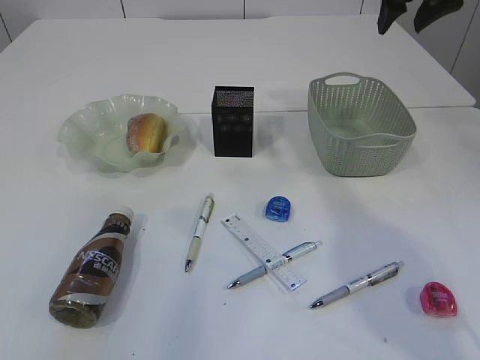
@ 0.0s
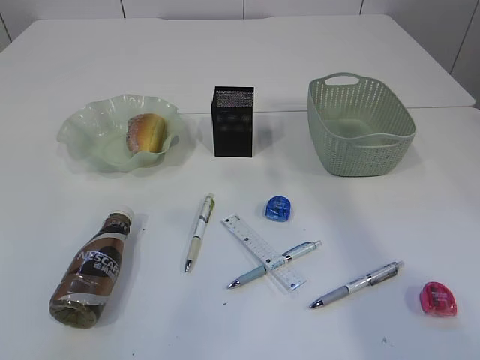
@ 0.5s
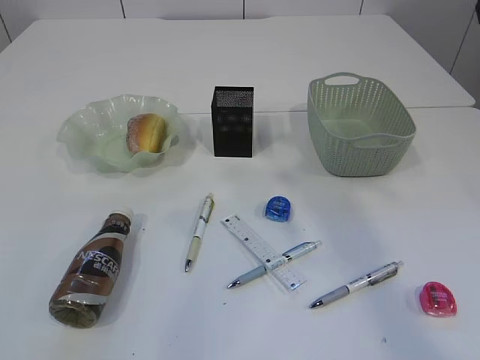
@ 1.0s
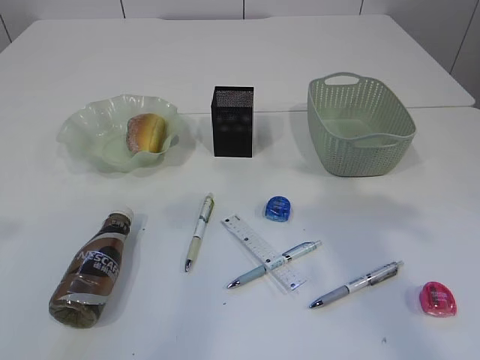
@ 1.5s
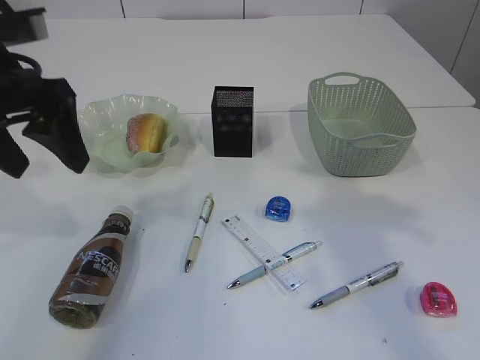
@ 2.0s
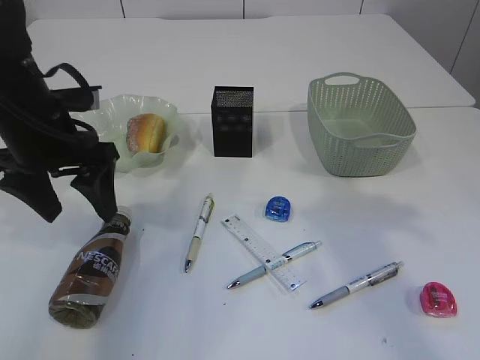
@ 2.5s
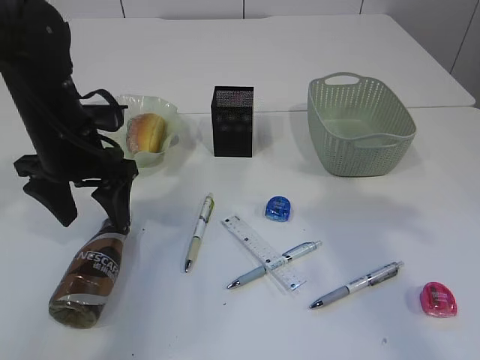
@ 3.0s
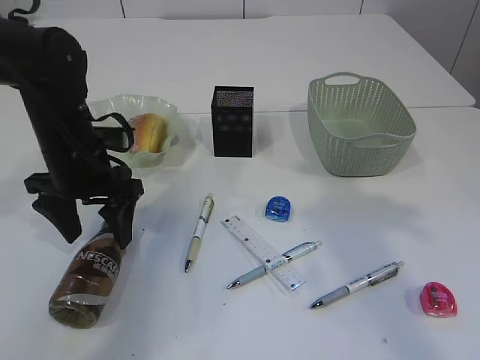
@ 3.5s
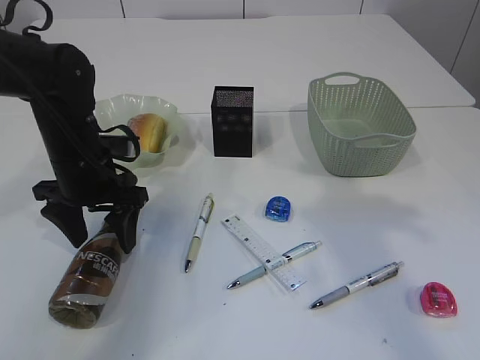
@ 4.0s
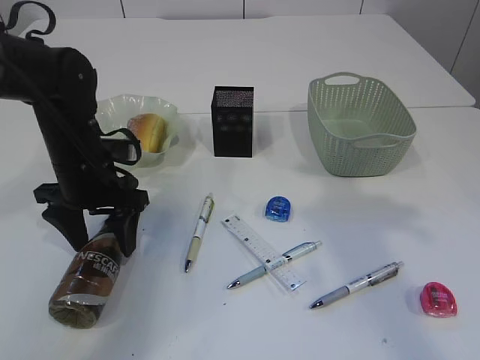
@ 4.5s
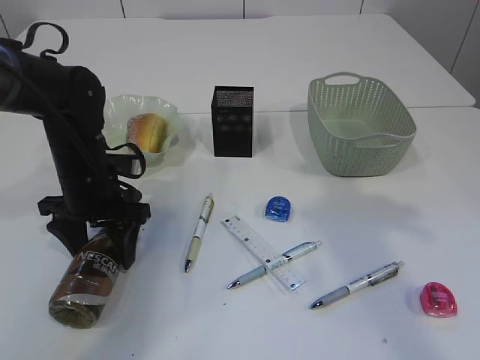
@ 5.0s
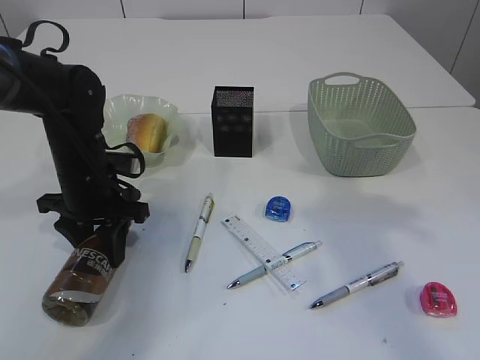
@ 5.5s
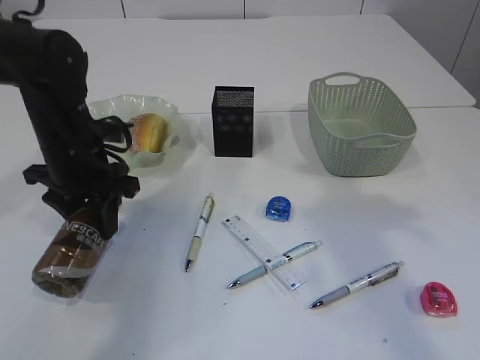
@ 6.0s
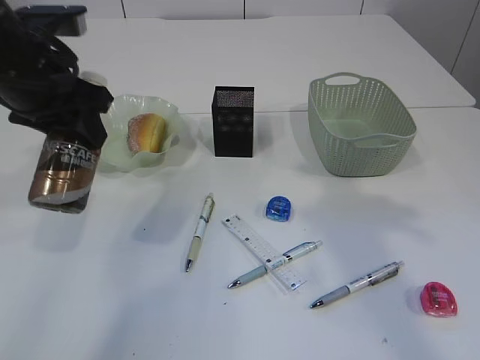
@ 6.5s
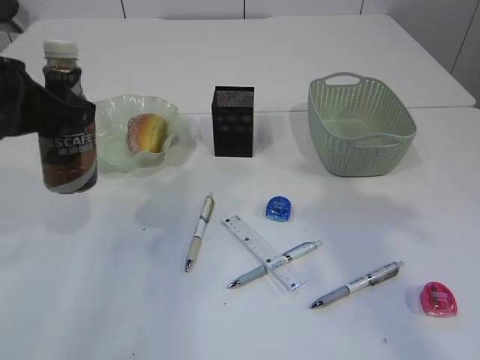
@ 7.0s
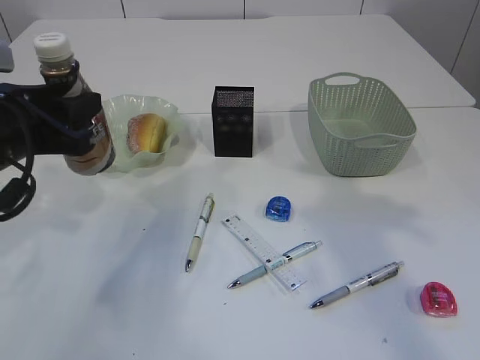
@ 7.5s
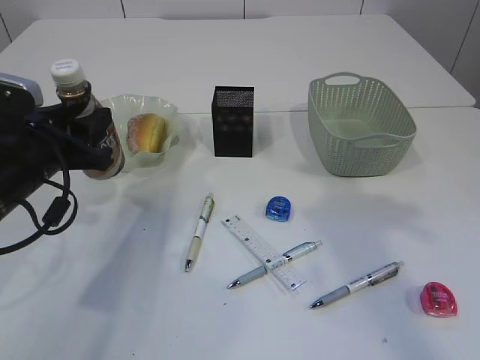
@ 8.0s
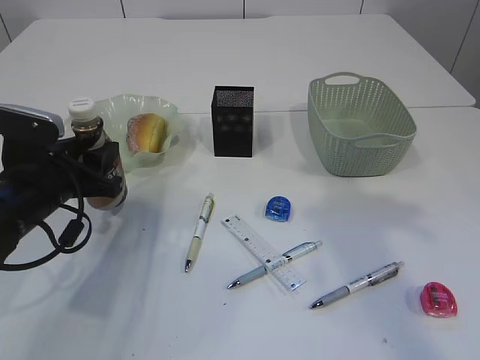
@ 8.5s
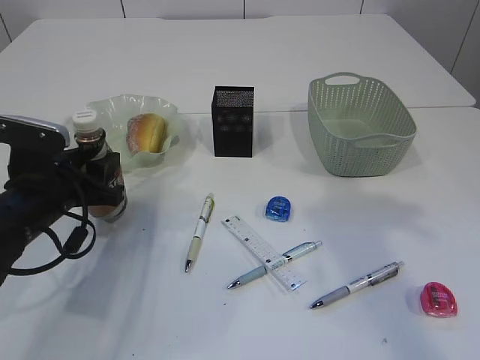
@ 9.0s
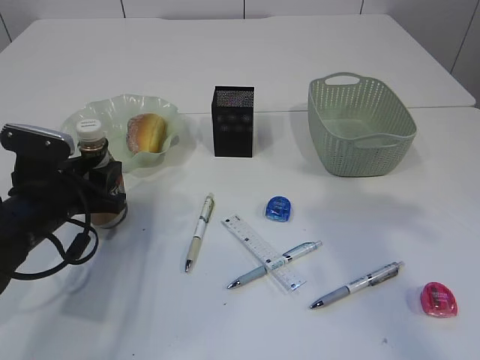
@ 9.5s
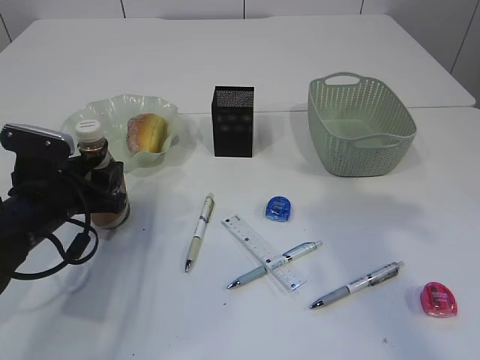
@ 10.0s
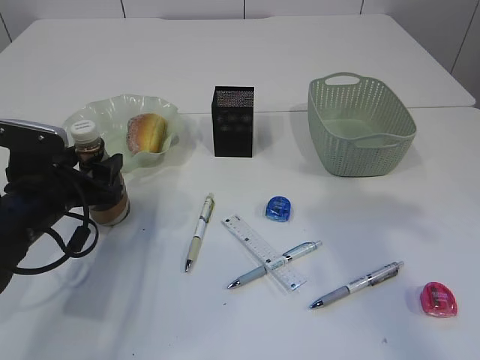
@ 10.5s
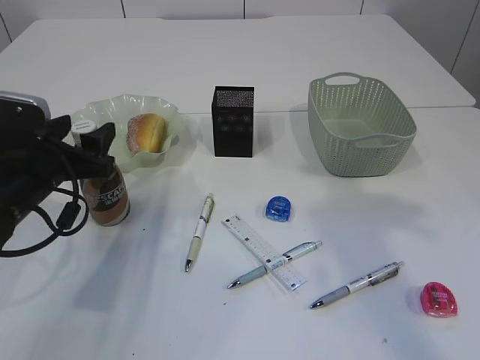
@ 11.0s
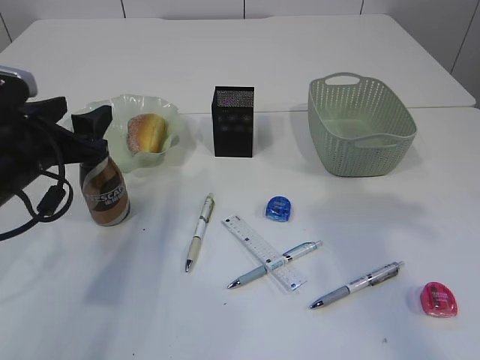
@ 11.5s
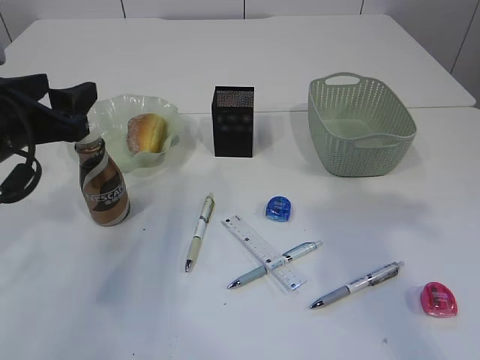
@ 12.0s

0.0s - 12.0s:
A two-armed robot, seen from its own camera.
Step, 0.0s - 6.5s: Pick up the bottle with the left arm.
0.0s - 2.0s: The left gripper heads forward and downward, covering roughly 20 cm, and opens. The right gripper travels backward by some 25 cm.
2.0s - 4.0s: The left gripper heads downward and forward, covering approximately 15 cm.
4.0s - 6.0s: The left gripper closes its fingers.
6.0s - 8.0s: The left gripper goes about 5 cm backward, and reaches some 10 cm upward, then returns.
8.0s - 10.0s: The left gripper is displaced downward by roughly 5 cm.
10.0s - 12.0s: The left gripper travels upward by approximately 10 cm, and opens its fingers.

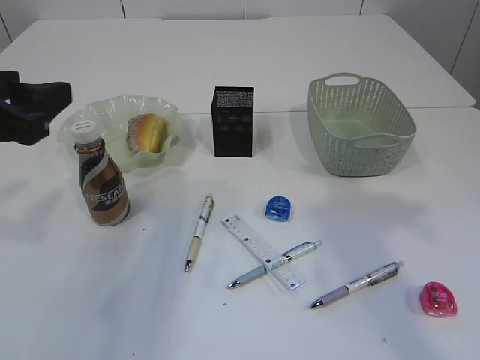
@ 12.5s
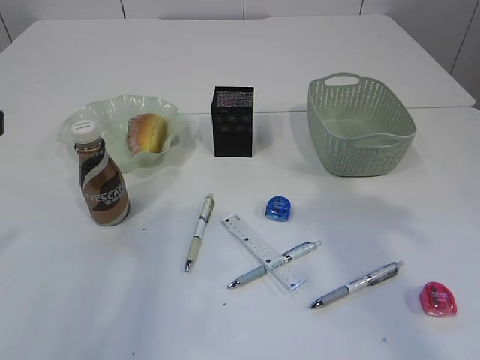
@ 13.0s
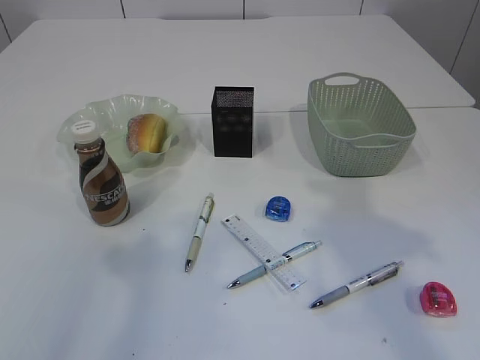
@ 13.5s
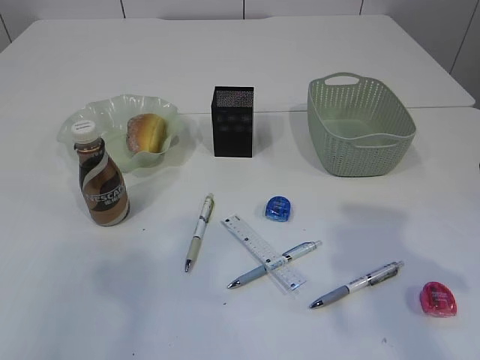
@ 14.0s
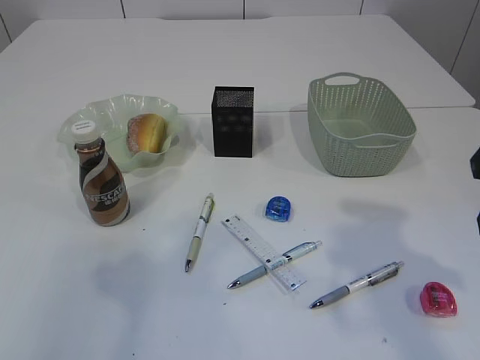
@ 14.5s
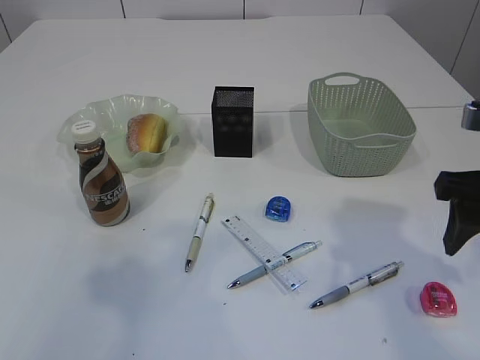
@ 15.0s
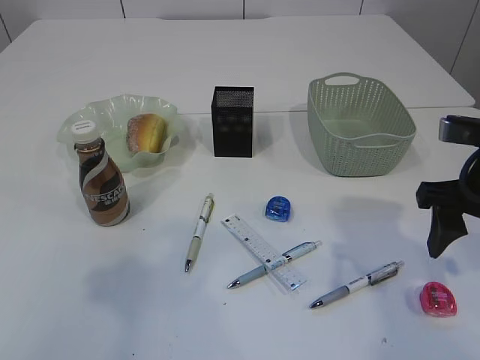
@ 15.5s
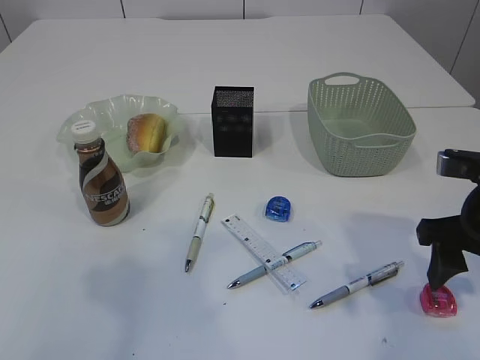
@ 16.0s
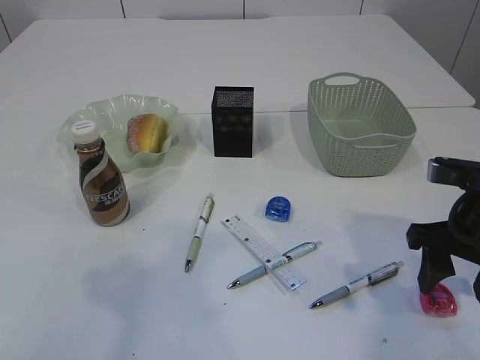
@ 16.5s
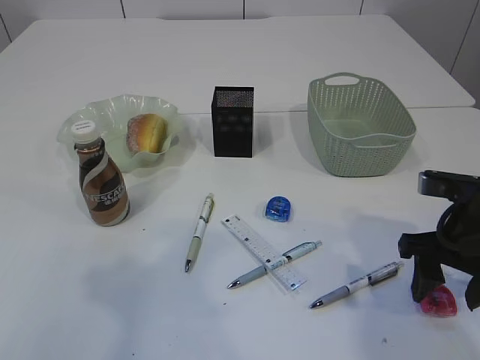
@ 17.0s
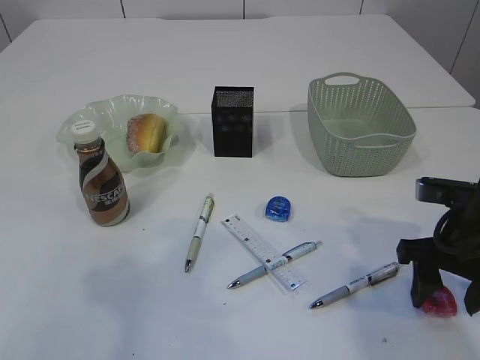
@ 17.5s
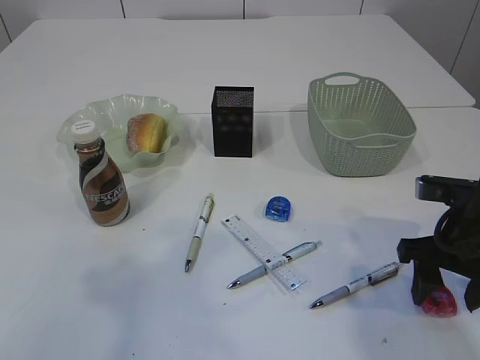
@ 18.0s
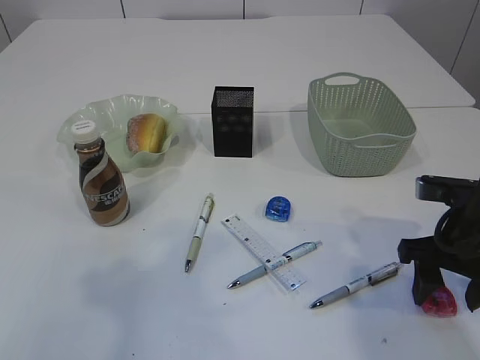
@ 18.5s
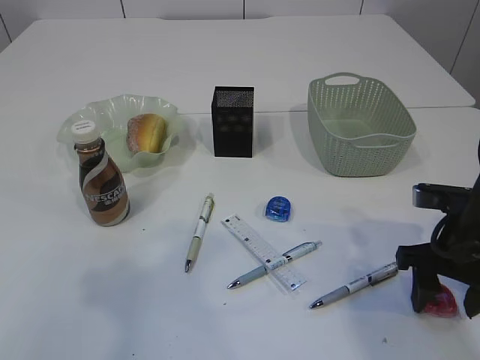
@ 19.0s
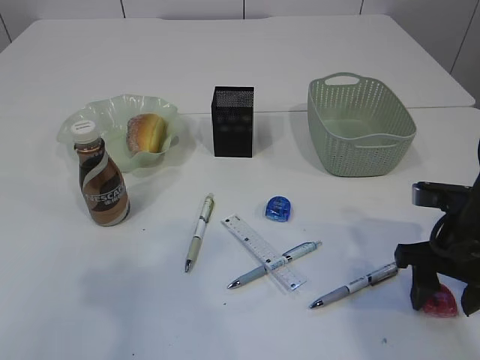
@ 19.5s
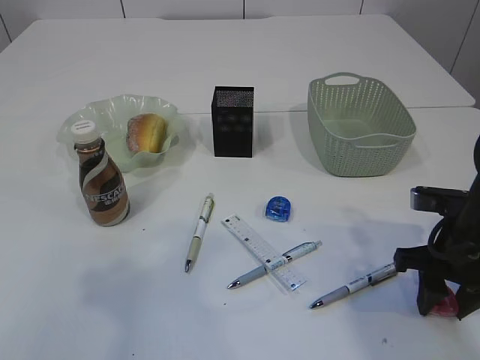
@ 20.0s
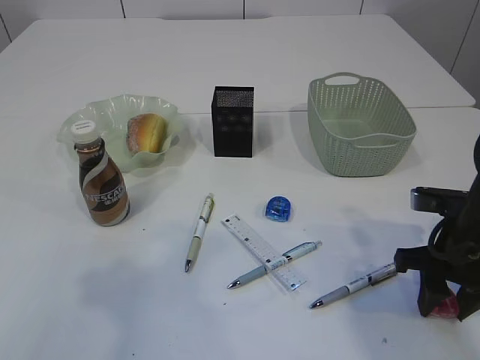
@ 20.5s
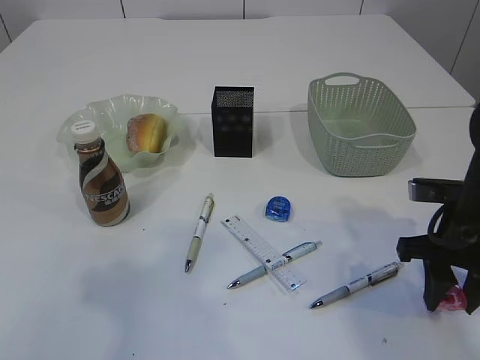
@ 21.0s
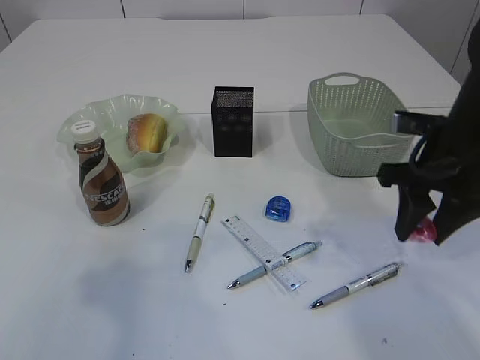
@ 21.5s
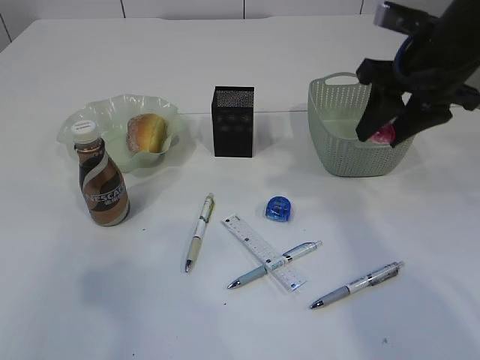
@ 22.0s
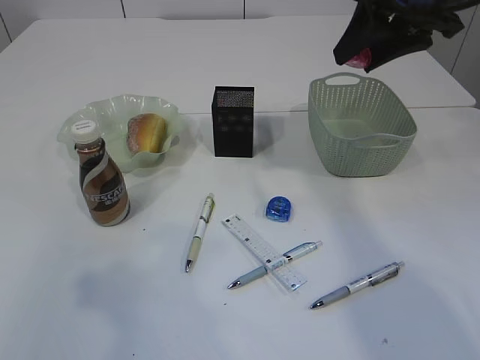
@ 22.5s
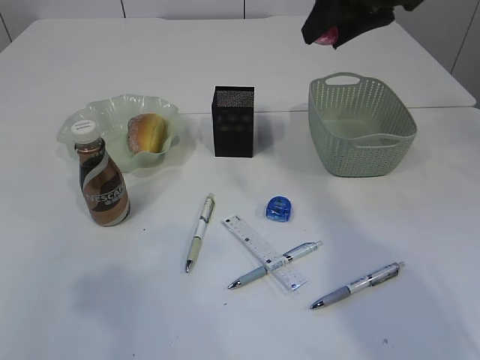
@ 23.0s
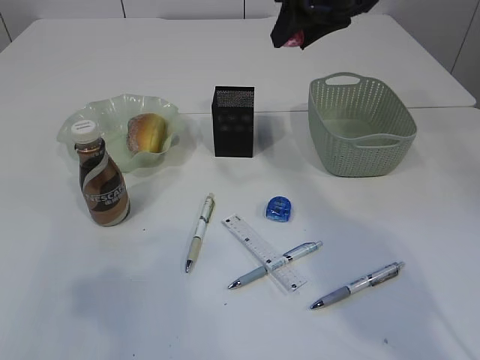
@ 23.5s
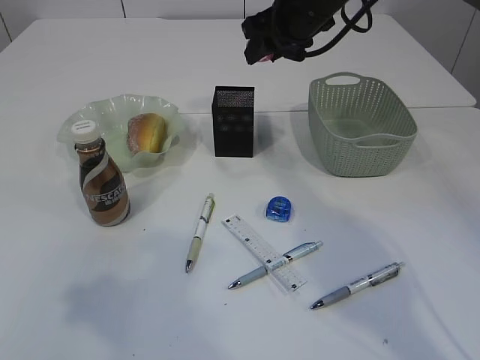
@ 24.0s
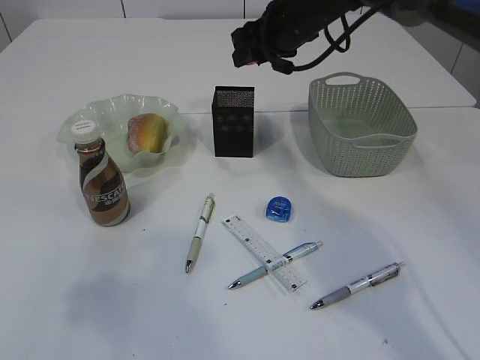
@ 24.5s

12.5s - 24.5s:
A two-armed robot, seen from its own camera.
Step, 12.5s - 21.0s: Pick up the red pencil sharpener.
12.5s - 14.5s: The right gripper is displaced downward by about 10 cm. Meanwhile the left gripper goes approximately 15 cm backward and upward.
14.5s - 16.5s: The right gripper goes roughly 10 cm downward.
16.5s - 18.5s: The grippers stay close to where they were, moving slightly.
18.5s - 20.5s: The right gripper closes up.
20.5s - 22.5s: The right gripper heads upward and forward, covering about 25 cm.
22.5s - 24.5s: The right gripper travels forward, to the left and downward by approximately 20 cm.

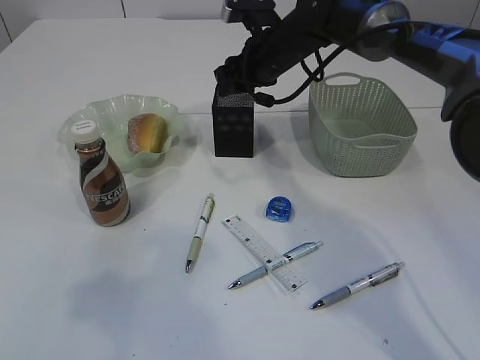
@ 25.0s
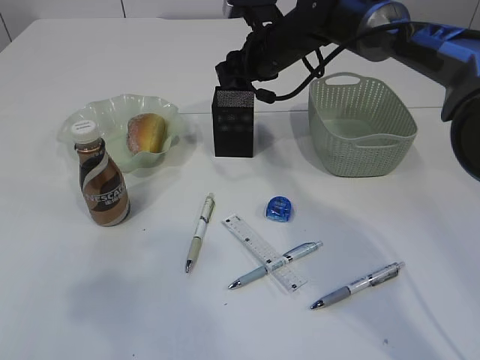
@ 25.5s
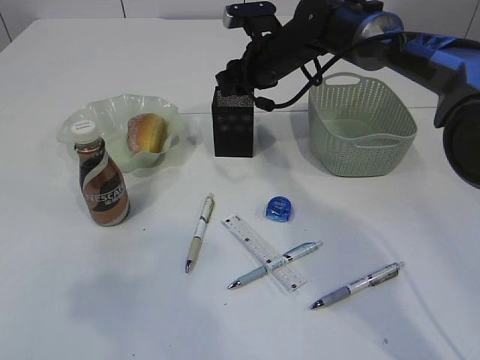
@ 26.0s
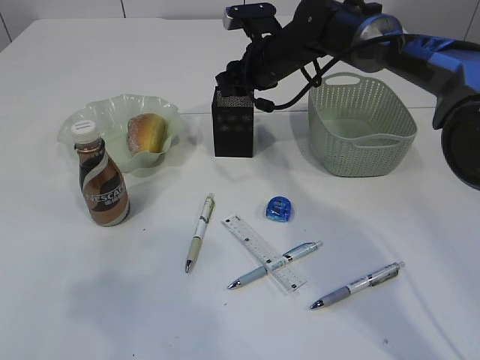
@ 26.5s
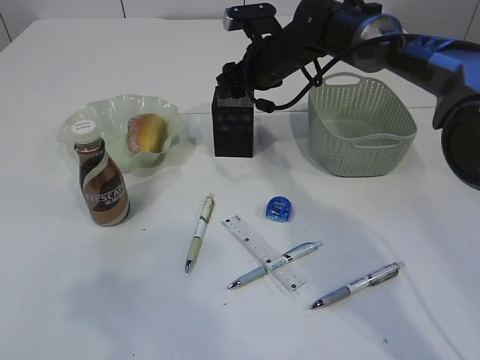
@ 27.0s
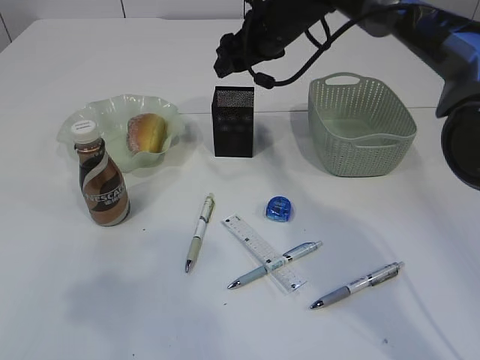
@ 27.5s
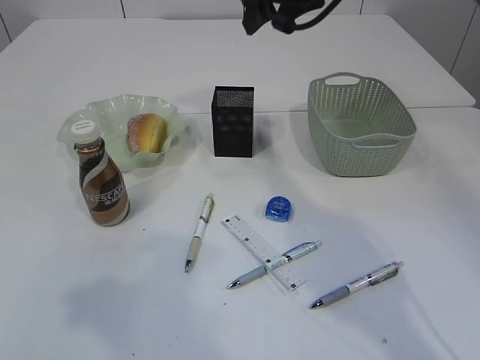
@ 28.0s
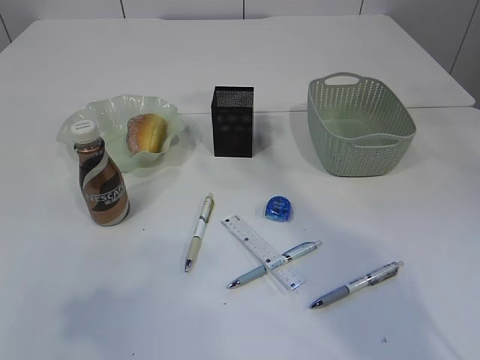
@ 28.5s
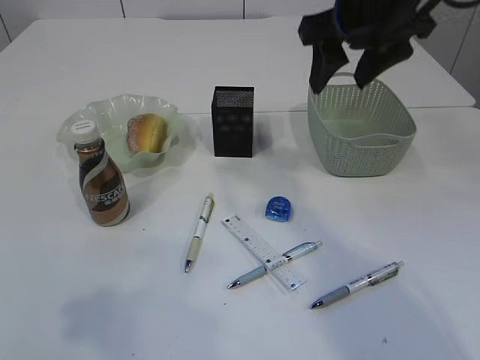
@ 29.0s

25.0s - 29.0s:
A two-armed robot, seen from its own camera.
Step, 25.0s - 27.5s: Place the red pencil sharpener into the pen holder.
25.0s - 27.0s: The grippers stay close to where they were, moving slightly.
27.0s - 29.0s: The right gripper travels upward, backward and to the right by roughly 25 cm.
